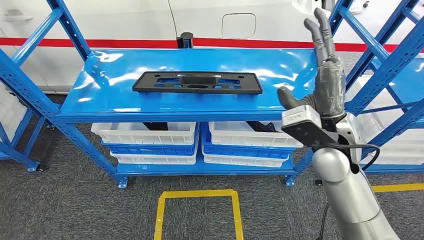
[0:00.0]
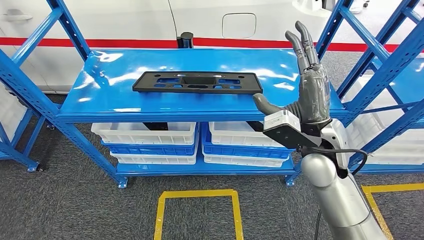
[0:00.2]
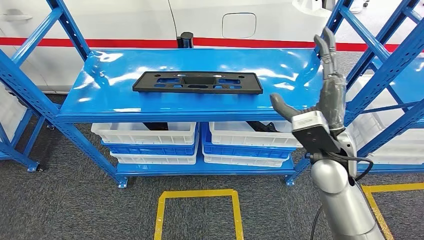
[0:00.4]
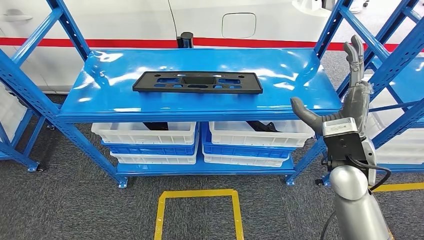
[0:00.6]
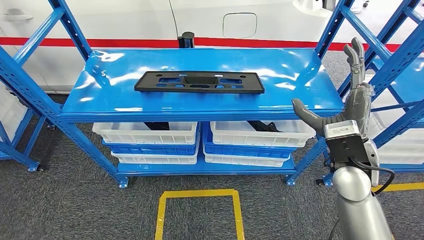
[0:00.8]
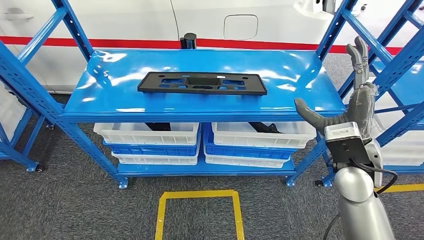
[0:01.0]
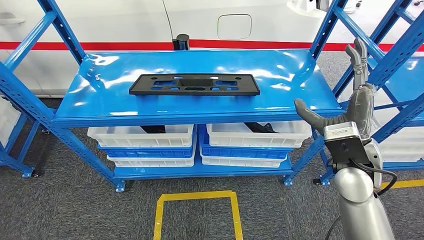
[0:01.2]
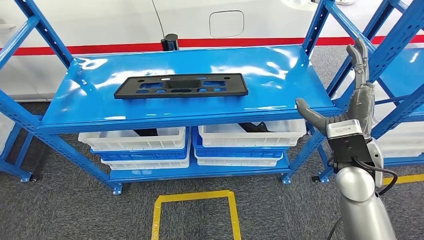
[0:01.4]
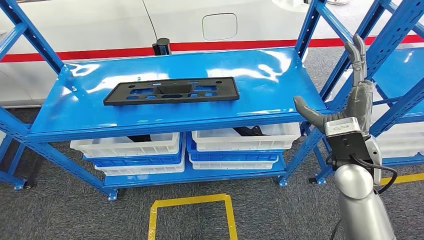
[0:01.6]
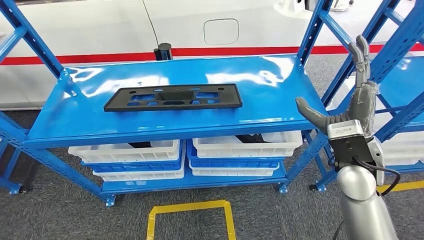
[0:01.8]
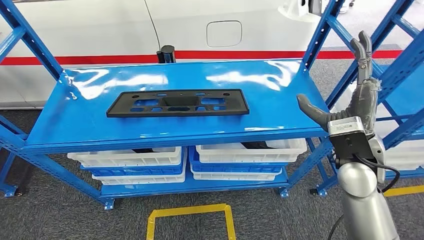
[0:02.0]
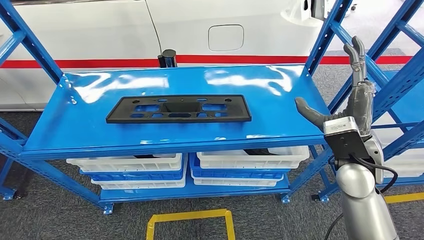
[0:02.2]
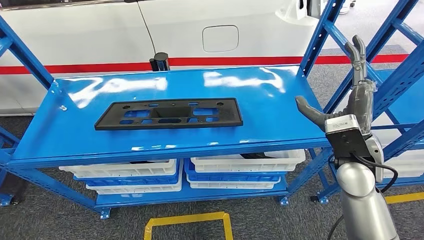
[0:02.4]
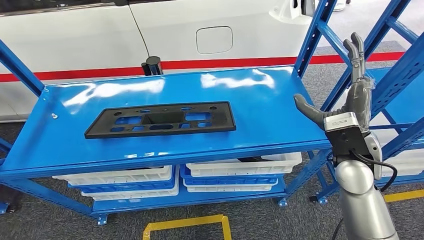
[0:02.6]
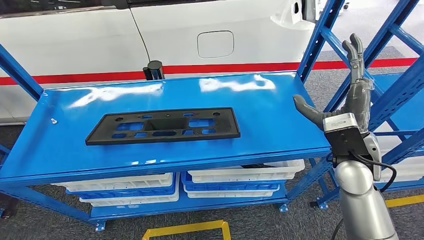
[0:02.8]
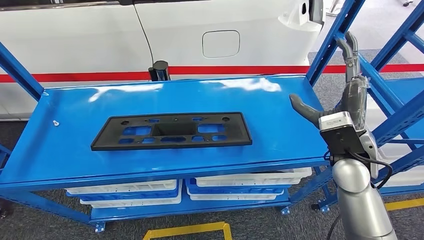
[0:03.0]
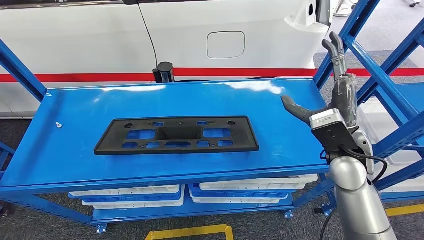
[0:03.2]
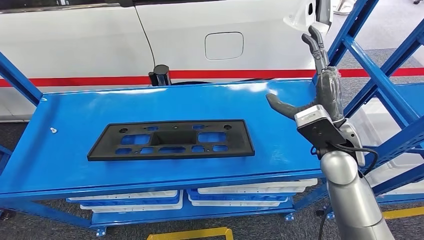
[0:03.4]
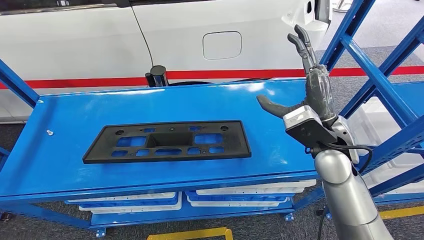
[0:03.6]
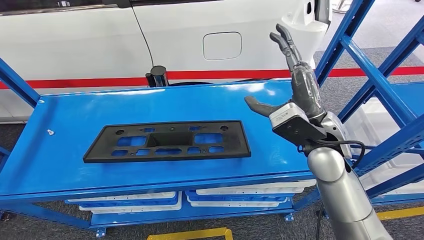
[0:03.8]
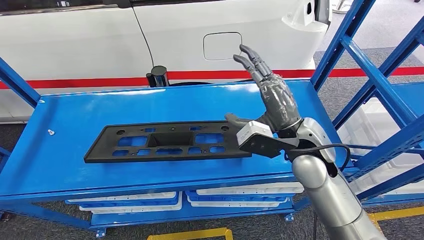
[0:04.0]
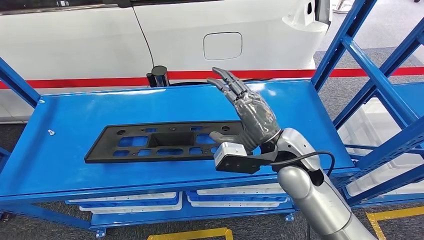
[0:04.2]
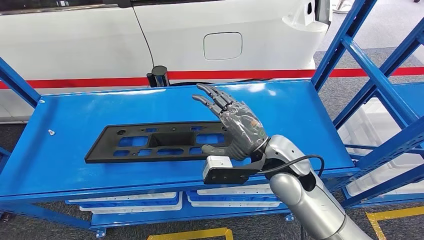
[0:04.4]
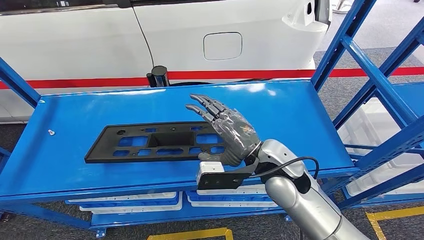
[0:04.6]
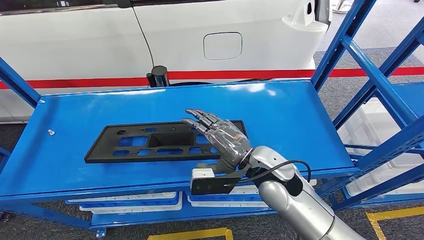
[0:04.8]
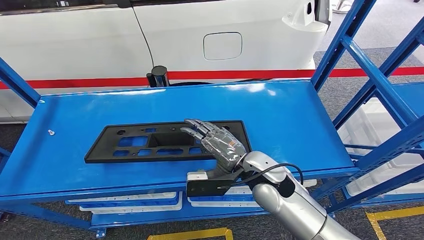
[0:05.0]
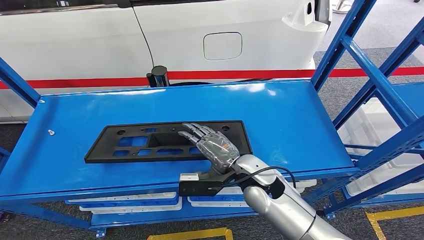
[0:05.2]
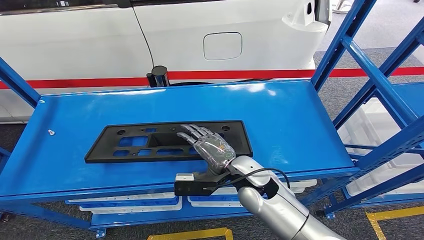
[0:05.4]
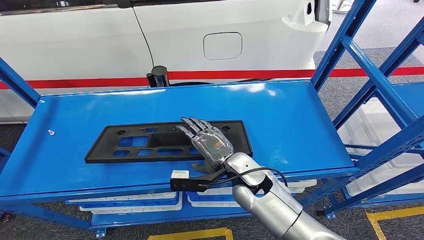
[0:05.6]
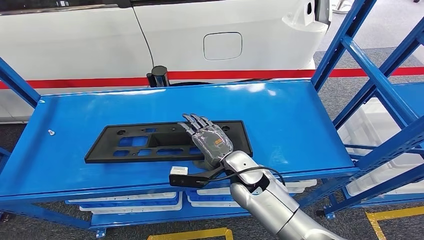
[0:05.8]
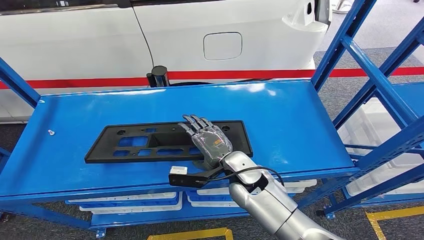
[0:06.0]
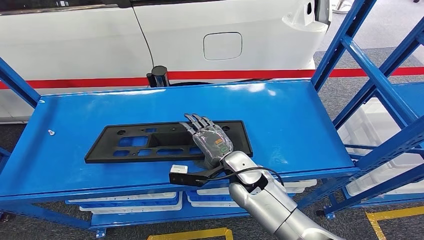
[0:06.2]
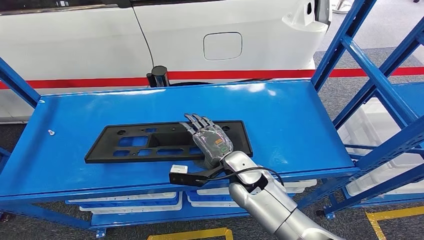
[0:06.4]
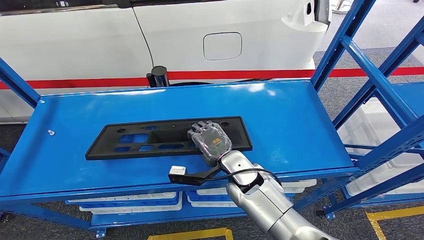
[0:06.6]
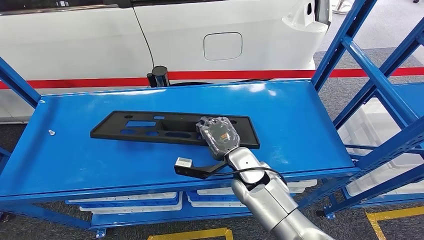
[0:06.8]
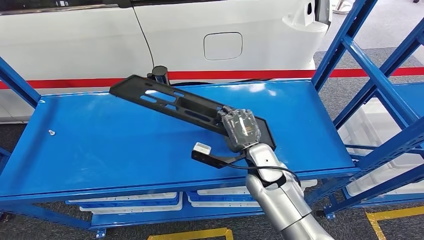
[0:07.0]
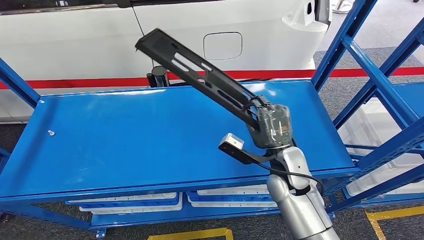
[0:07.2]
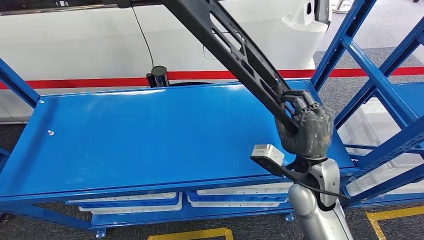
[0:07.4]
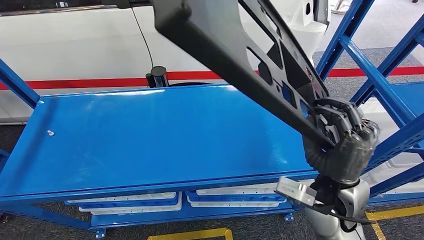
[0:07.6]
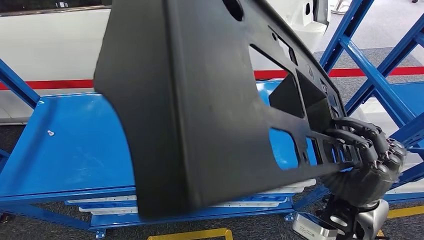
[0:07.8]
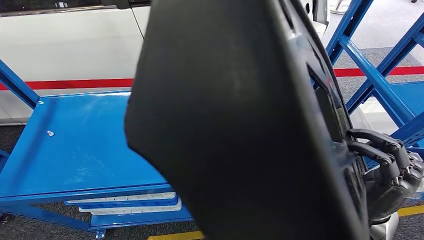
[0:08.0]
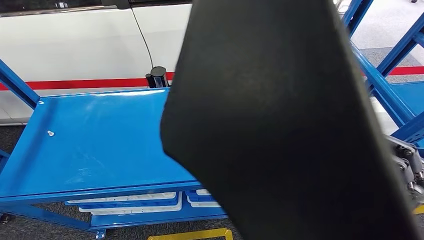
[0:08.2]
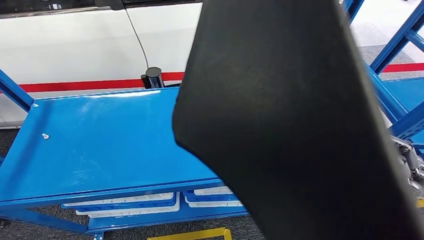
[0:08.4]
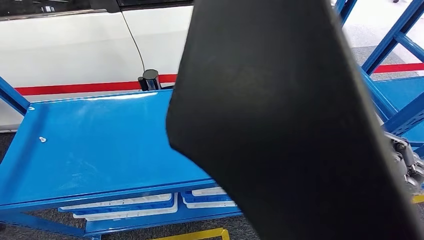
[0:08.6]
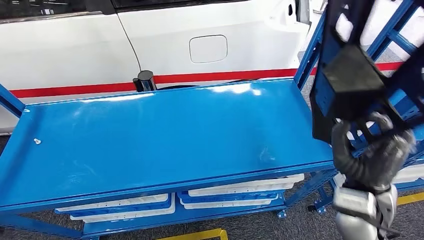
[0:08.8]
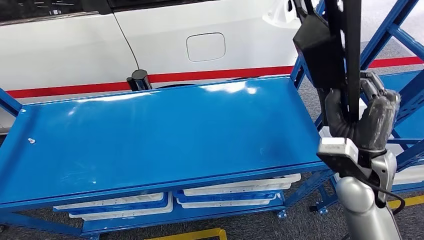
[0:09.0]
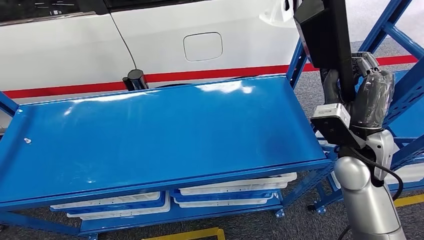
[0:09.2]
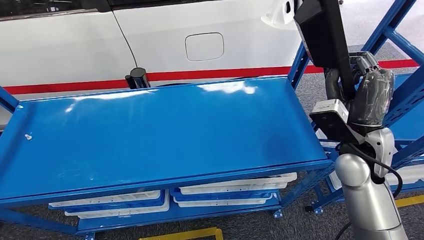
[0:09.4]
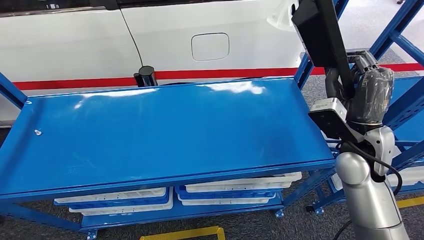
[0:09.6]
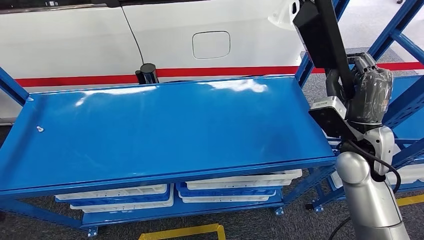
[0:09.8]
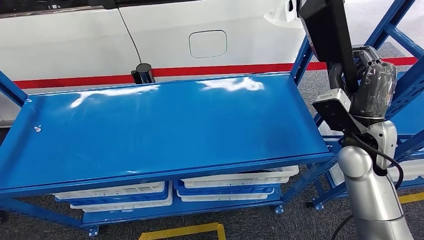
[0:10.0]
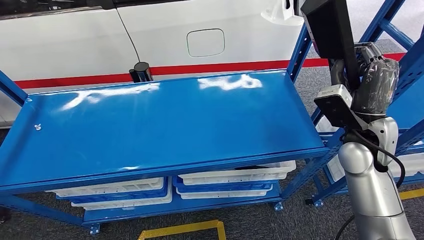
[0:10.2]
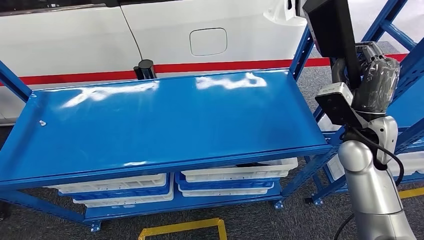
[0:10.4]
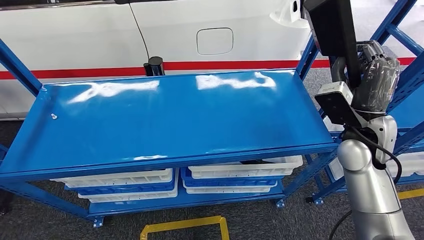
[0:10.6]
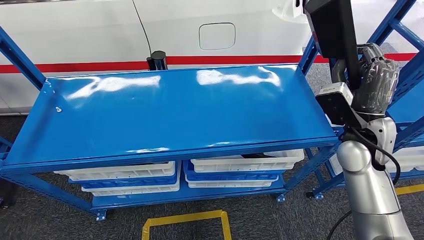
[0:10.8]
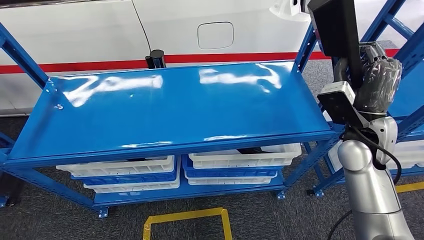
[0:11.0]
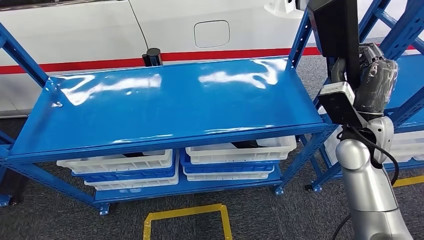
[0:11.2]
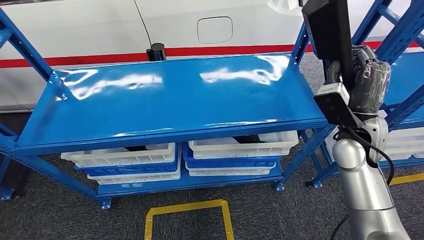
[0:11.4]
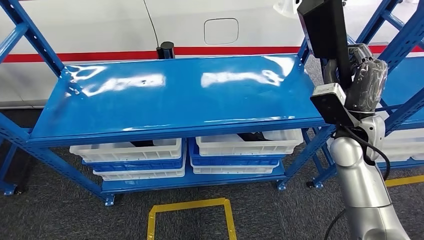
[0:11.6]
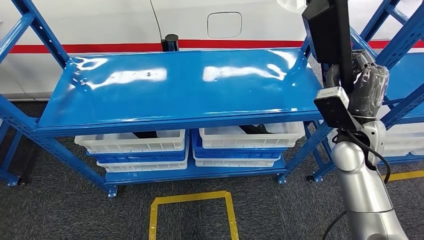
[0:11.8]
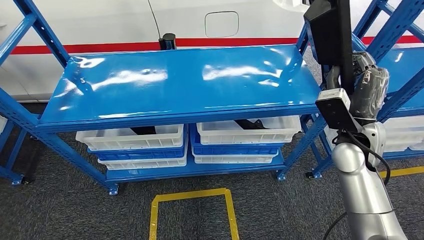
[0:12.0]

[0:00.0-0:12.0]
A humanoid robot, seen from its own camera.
Step, 0:00.0 to 0:10.6: Pick up the large material from the shelf.
0:04.4 to 0:06.0: The right hand heads downward and to the left, covering roughly 10 cm.

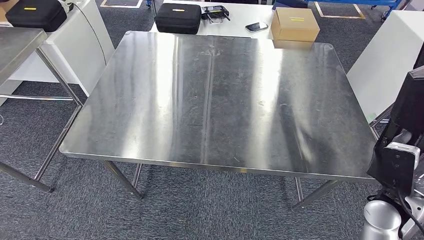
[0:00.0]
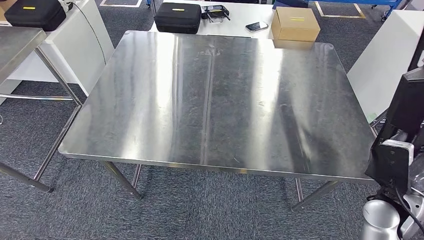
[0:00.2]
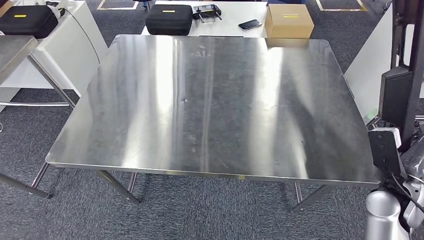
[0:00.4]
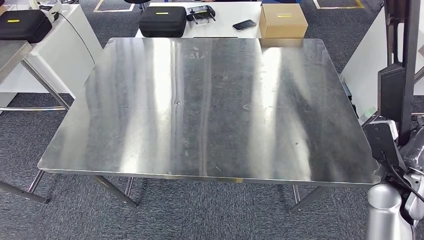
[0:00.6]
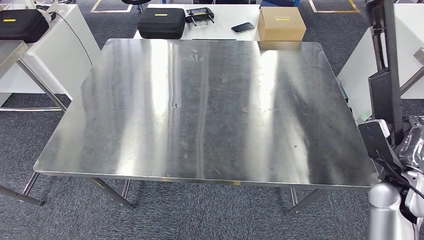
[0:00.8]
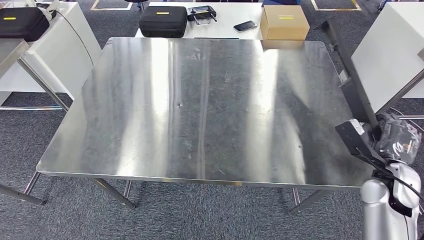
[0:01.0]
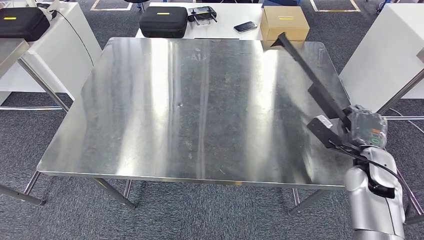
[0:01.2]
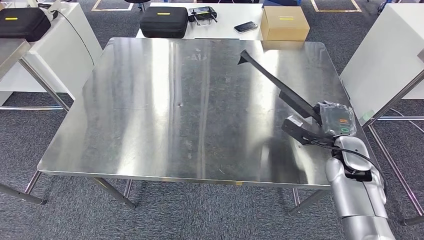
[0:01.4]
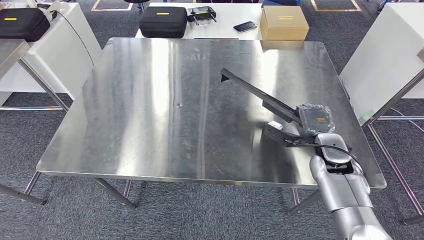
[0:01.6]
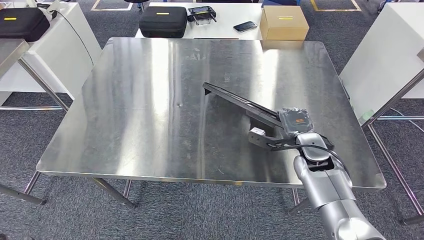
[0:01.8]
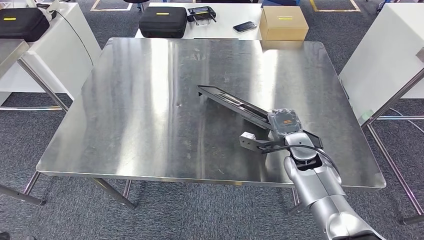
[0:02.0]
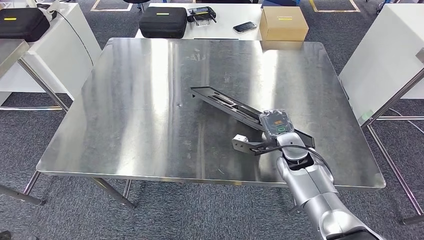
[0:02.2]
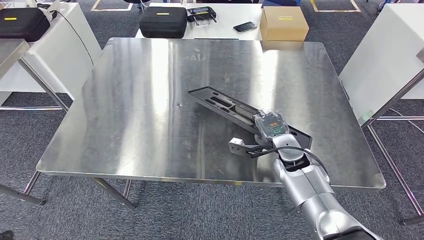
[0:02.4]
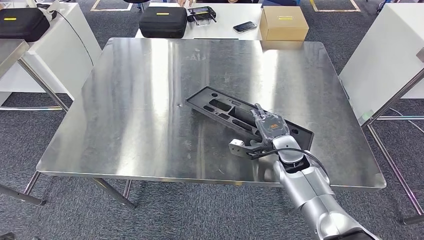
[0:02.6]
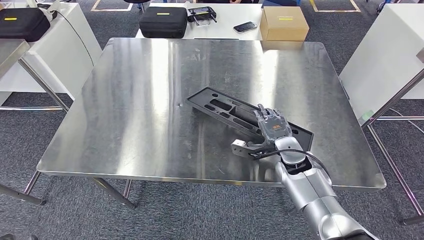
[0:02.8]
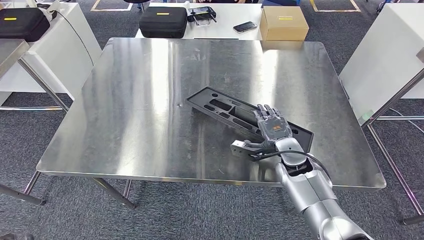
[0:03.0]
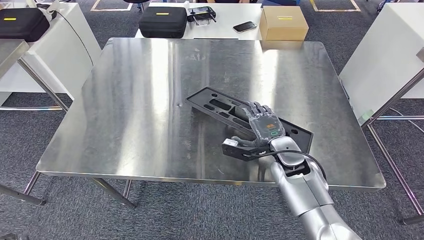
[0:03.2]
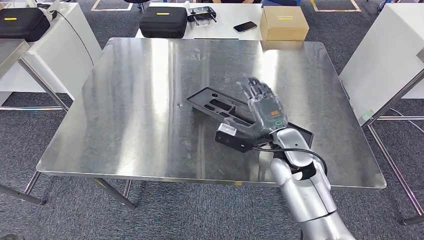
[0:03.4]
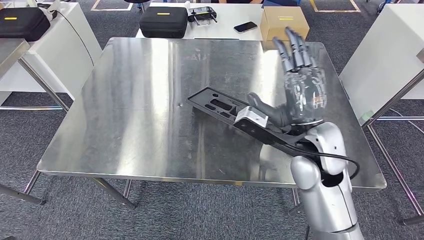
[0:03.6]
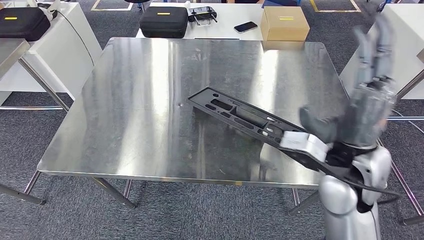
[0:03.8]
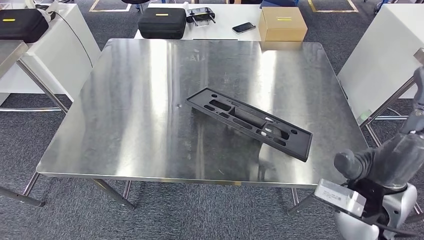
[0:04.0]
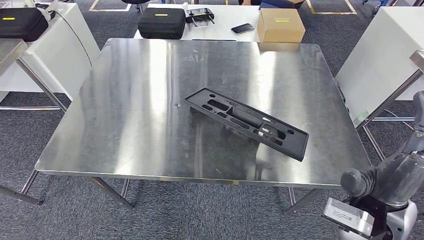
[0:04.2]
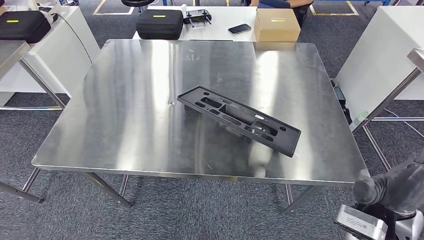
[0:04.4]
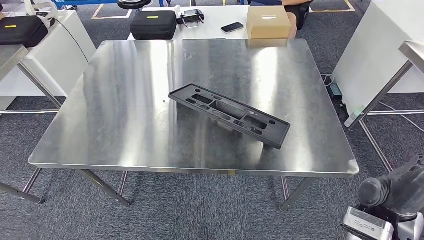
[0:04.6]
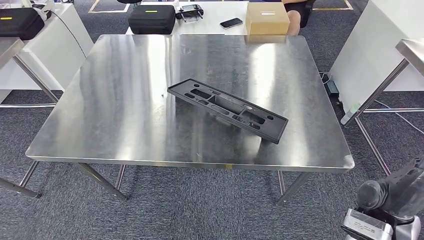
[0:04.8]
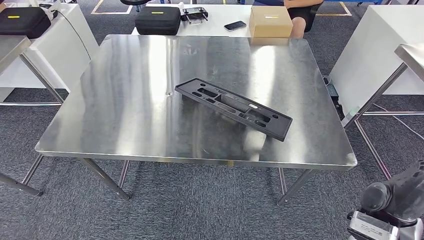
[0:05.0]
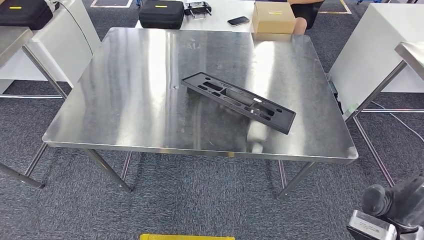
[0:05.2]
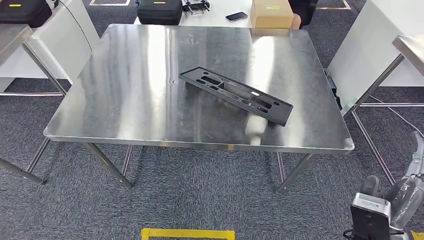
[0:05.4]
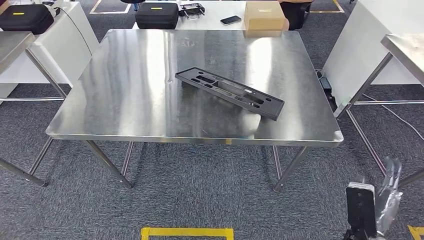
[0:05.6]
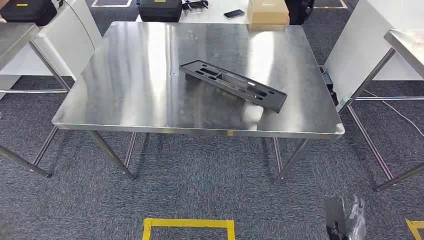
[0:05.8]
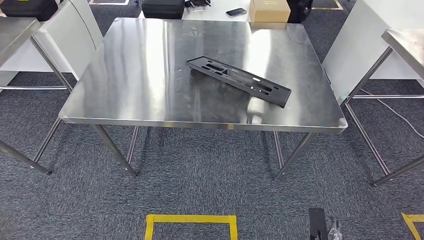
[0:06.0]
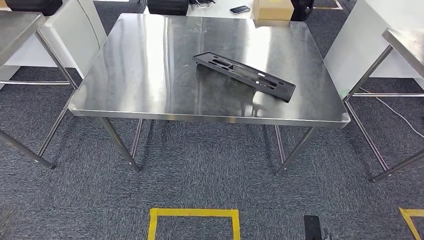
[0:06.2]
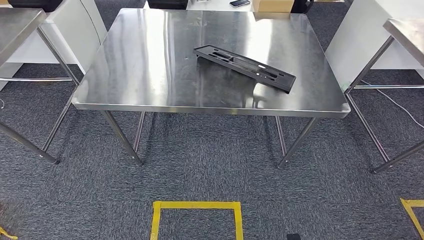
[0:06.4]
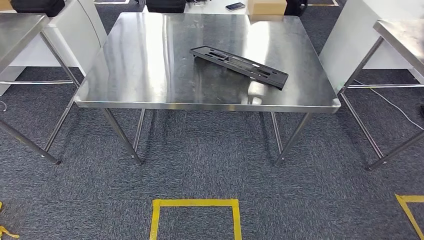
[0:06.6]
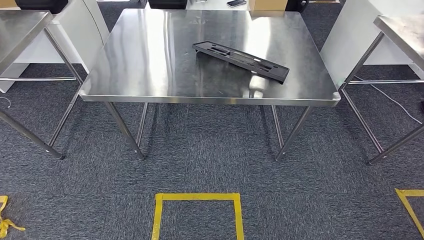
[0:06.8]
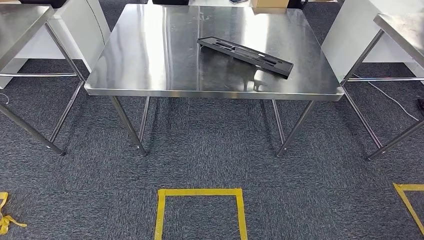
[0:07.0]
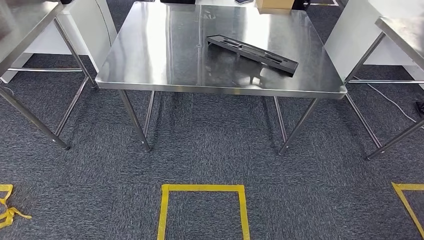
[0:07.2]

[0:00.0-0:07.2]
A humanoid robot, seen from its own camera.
0:01.4 to 0:02.8: The right hand goes roughly 15 cm to the left.
